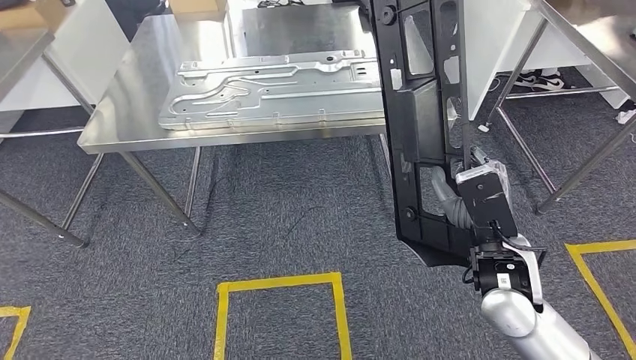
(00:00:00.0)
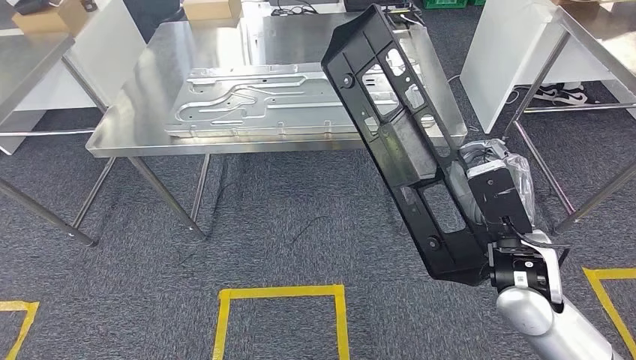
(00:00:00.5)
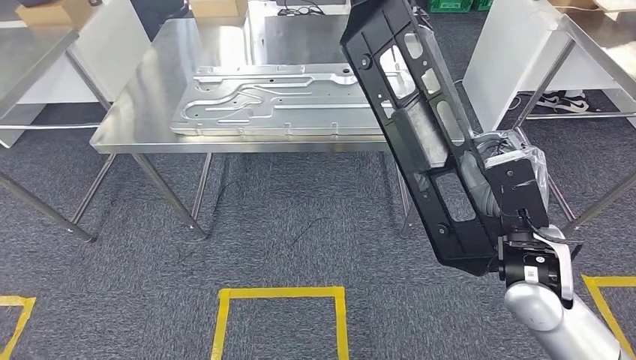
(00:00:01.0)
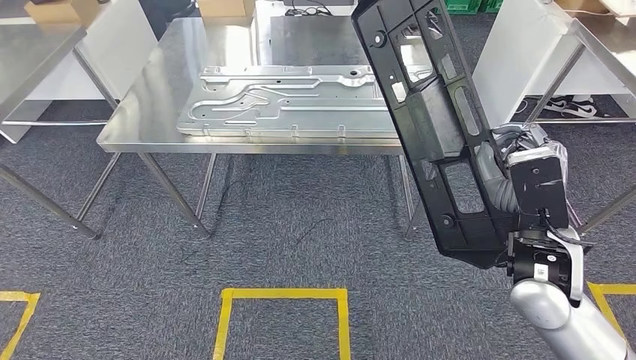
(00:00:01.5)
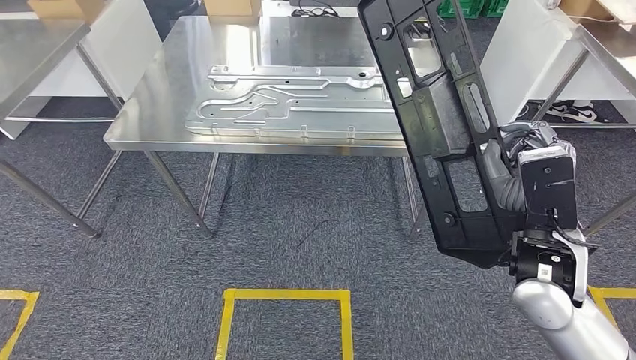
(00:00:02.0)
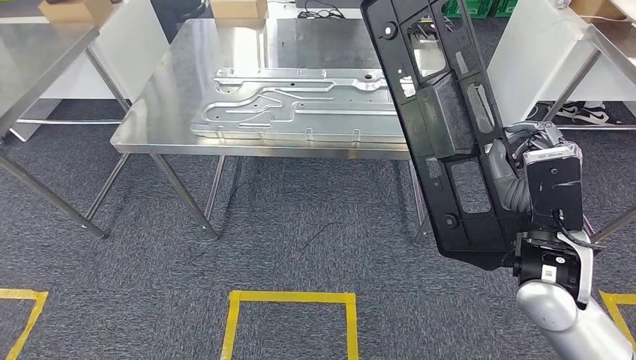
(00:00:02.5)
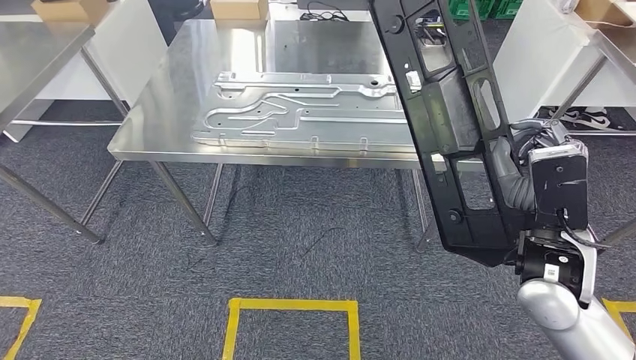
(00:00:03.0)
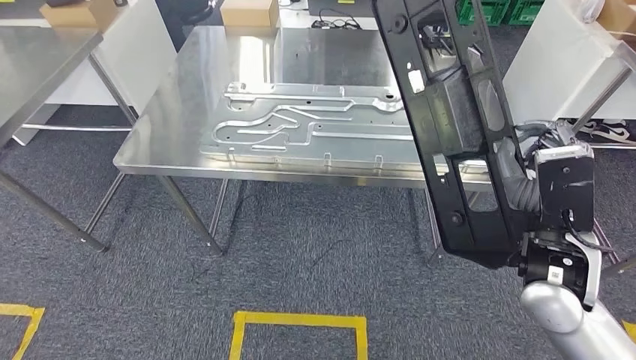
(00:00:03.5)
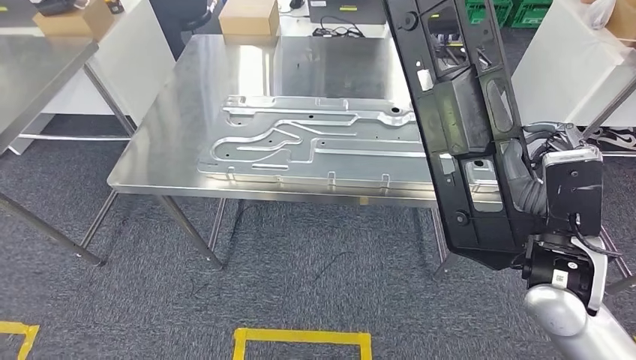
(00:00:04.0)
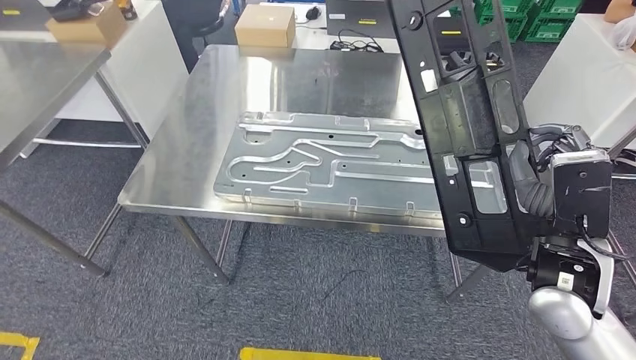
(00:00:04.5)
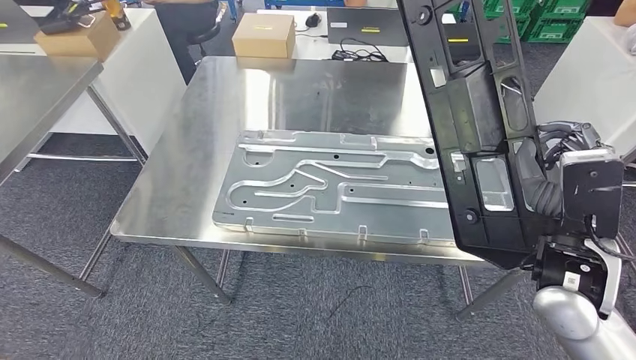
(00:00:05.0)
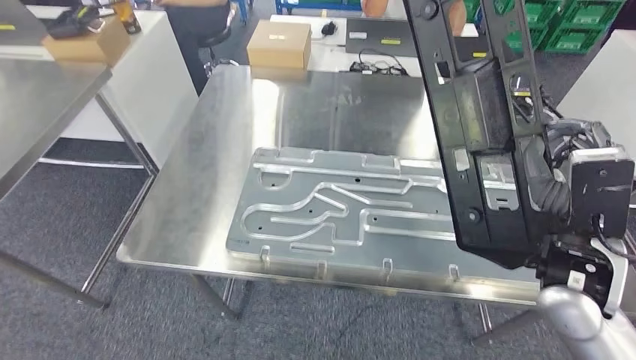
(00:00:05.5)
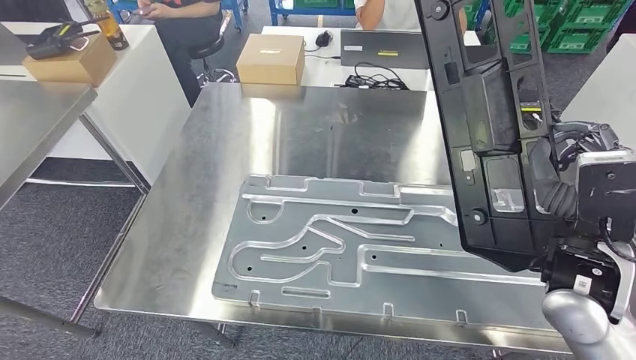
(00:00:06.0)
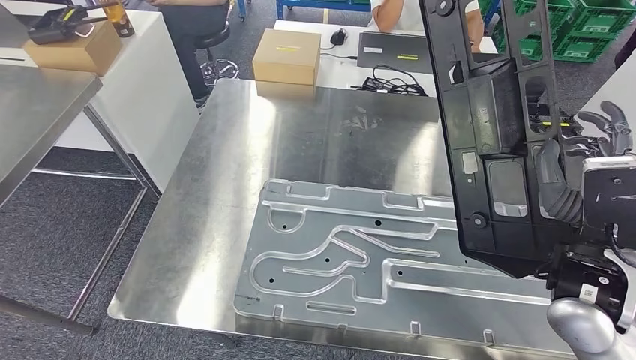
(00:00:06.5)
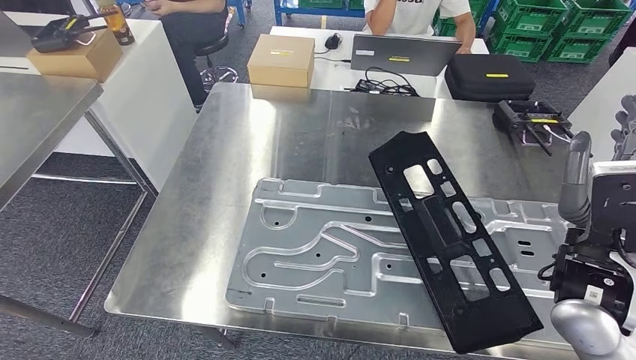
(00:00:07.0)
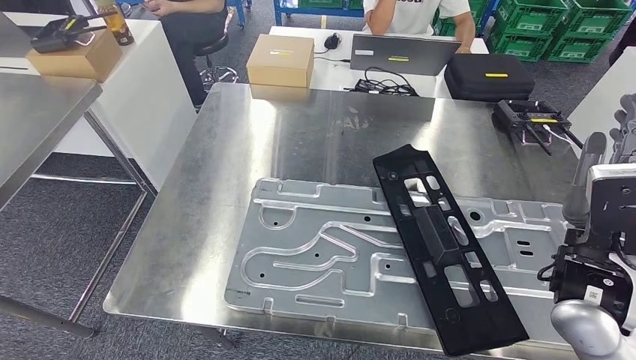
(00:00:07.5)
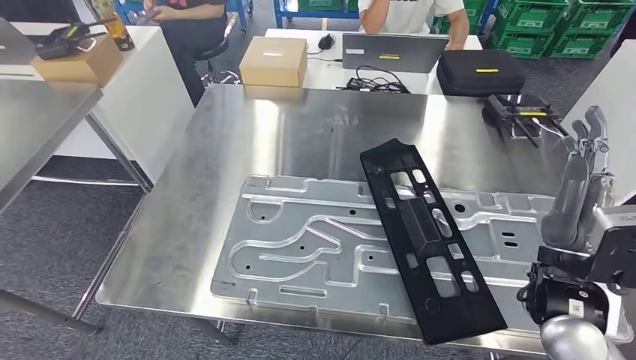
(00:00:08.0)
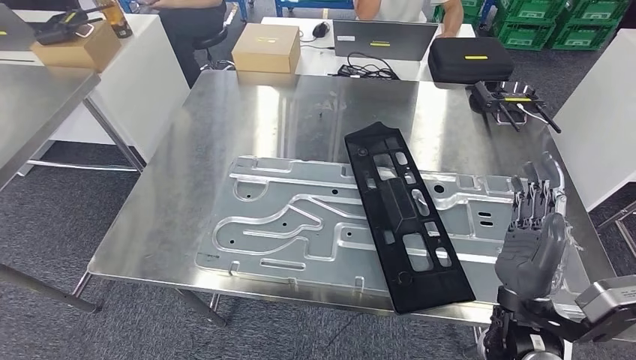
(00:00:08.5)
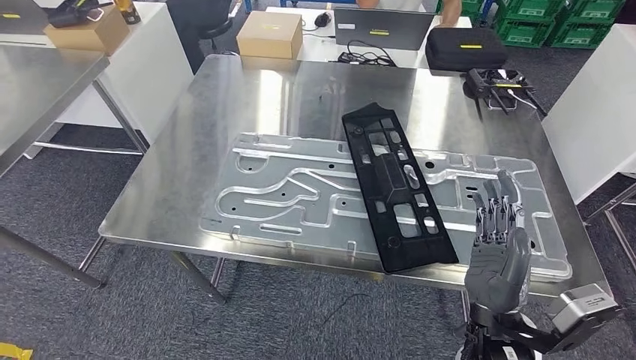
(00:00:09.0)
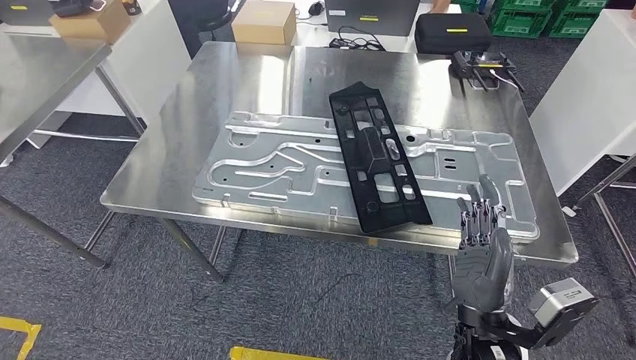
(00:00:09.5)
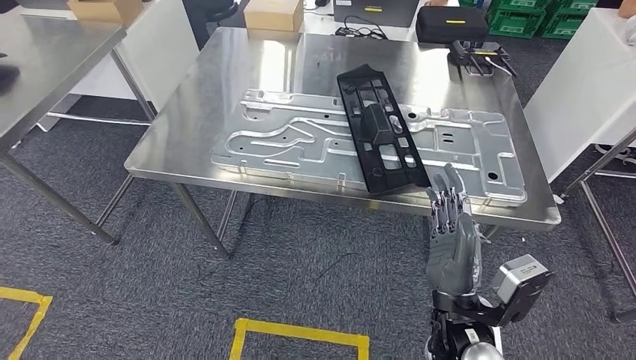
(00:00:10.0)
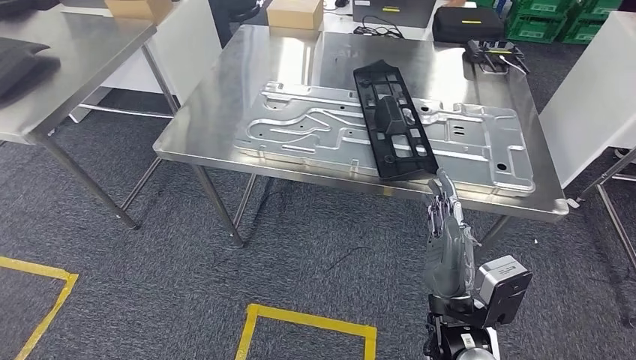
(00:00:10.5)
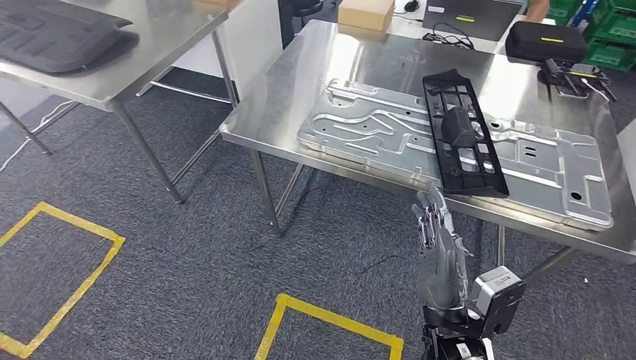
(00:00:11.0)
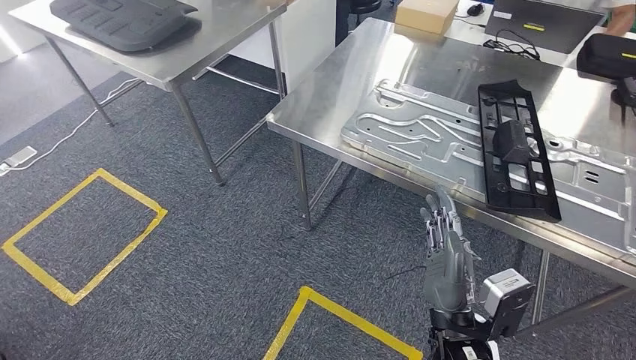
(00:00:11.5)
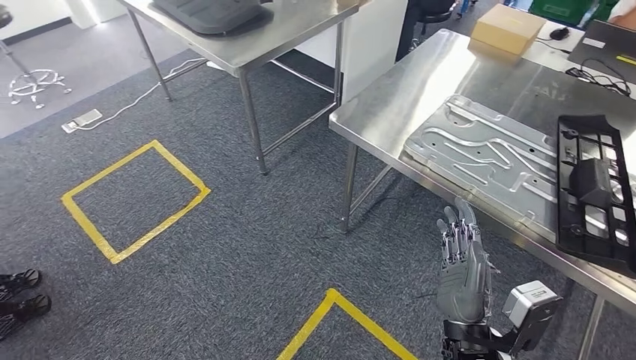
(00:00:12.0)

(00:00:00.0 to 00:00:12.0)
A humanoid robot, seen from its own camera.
Step, 00:00:02.0 - 00:00:09.0: Insert the large material into the corresponding slot on the workbench.

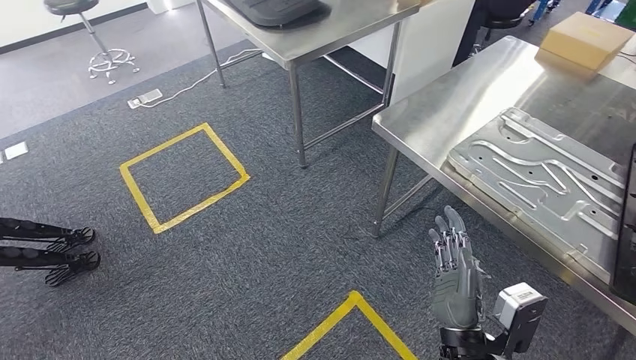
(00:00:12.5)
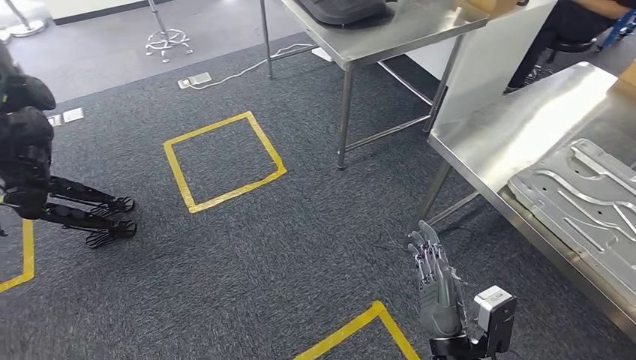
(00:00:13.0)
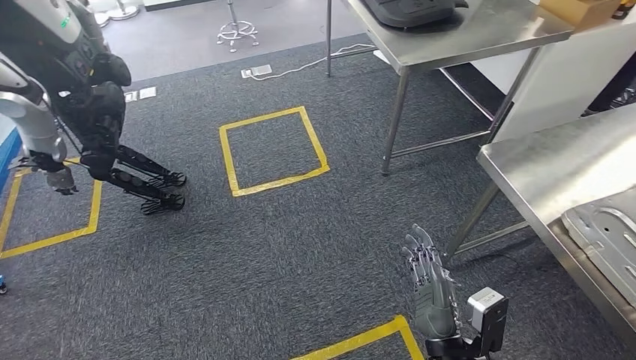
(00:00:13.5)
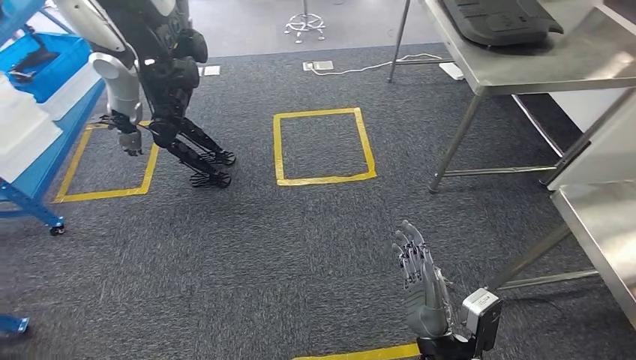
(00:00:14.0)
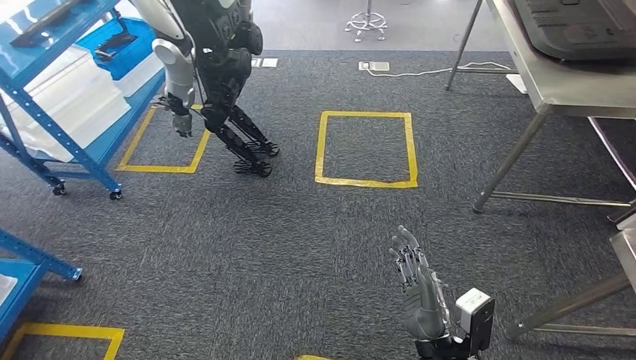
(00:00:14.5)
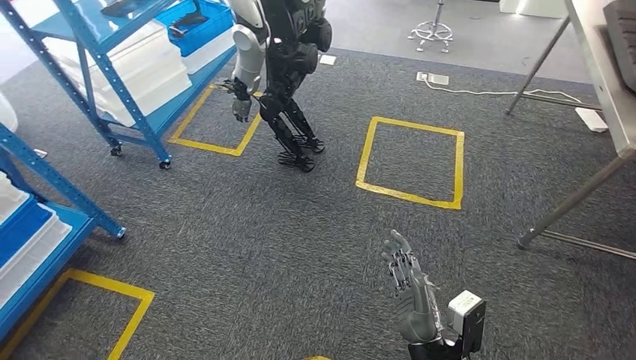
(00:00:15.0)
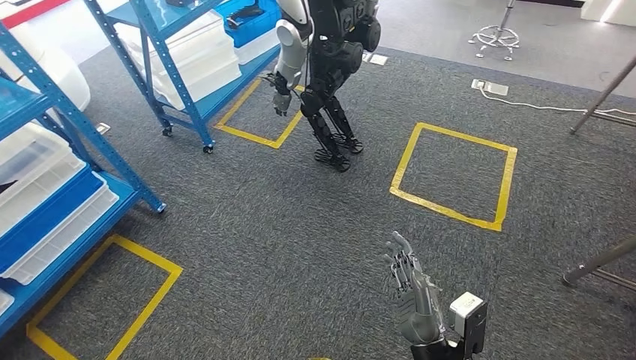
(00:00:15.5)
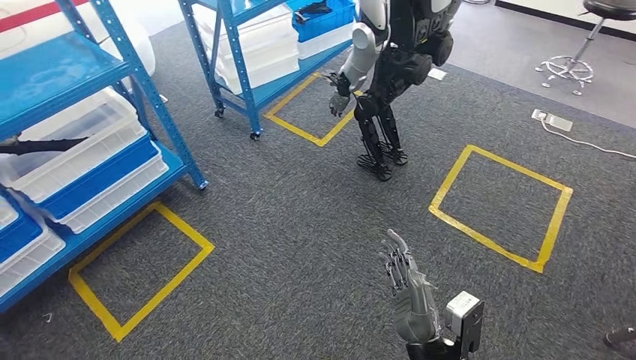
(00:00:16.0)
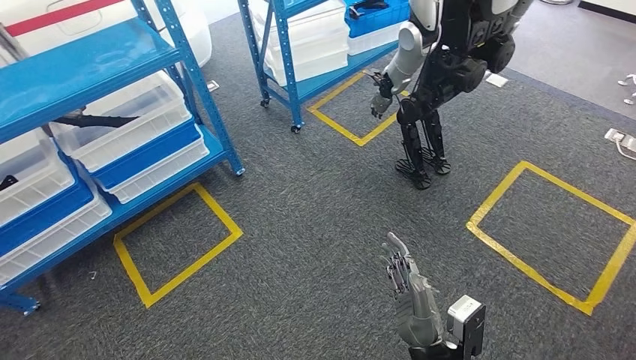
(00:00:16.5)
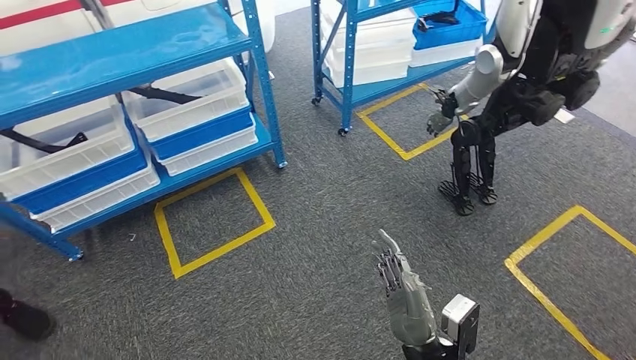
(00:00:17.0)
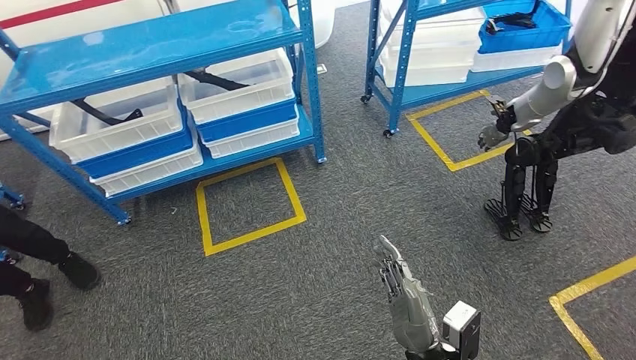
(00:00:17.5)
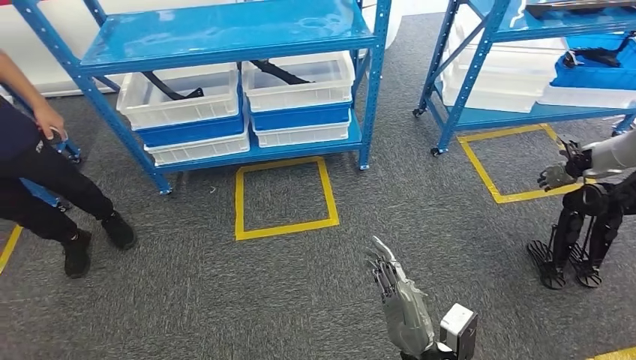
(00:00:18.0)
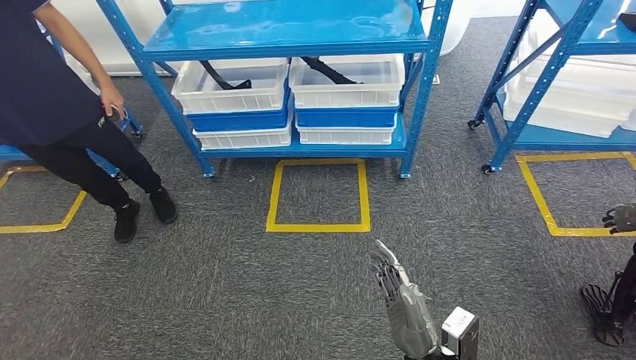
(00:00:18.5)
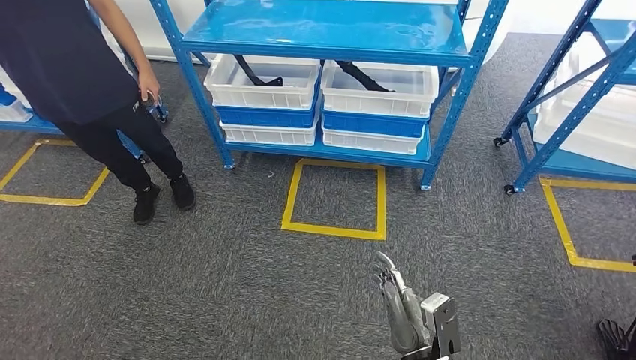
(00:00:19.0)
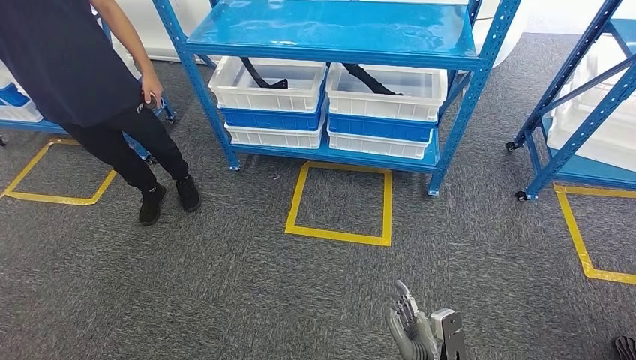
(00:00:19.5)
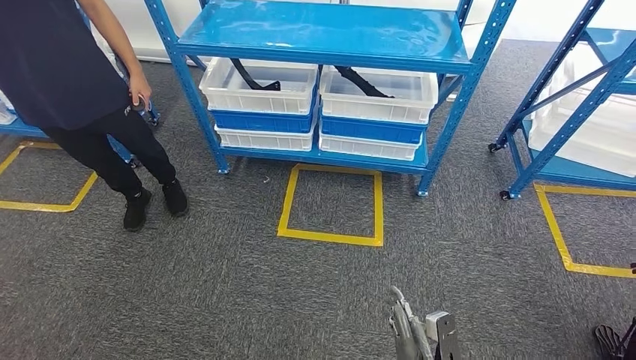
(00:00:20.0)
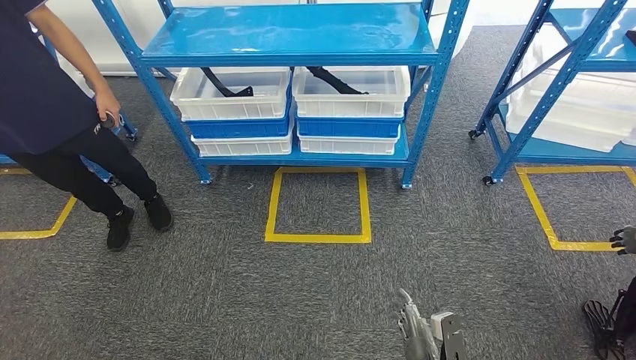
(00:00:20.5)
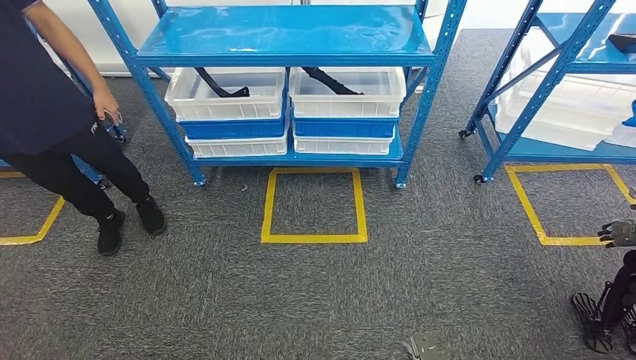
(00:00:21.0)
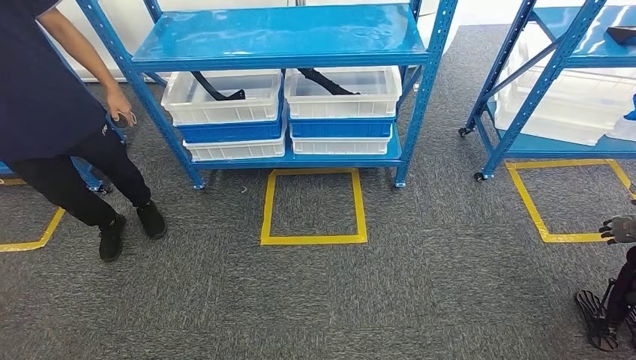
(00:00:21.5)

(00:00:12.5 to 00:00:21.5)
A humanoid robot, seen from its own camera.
Step, 00:00:12.5 - 00:00:21.5: Move to the initial position of the shelf.
